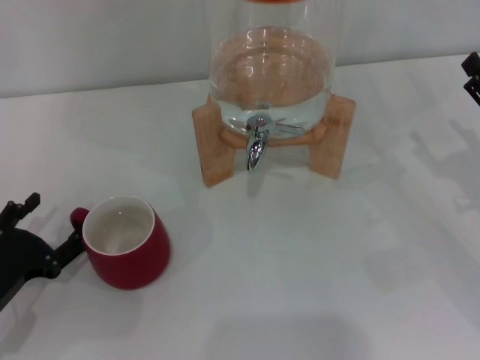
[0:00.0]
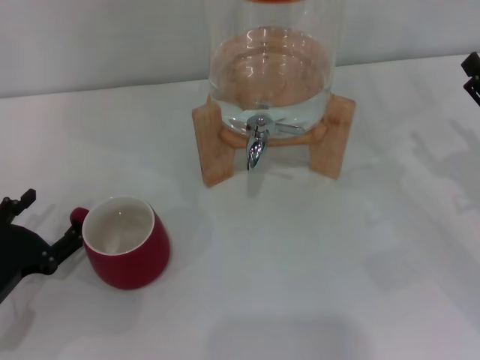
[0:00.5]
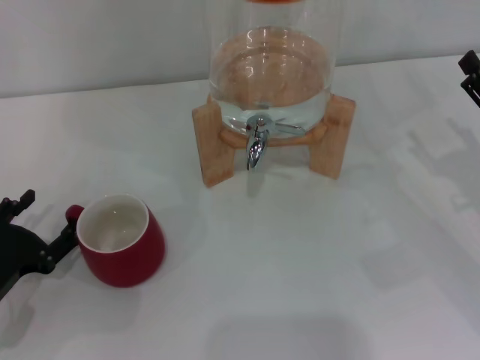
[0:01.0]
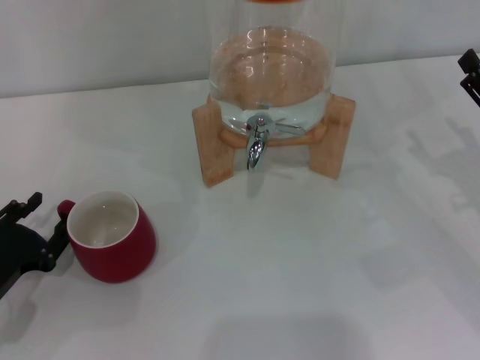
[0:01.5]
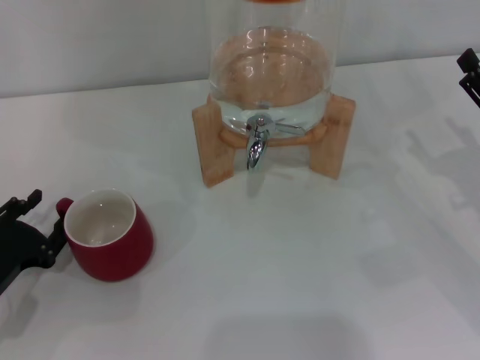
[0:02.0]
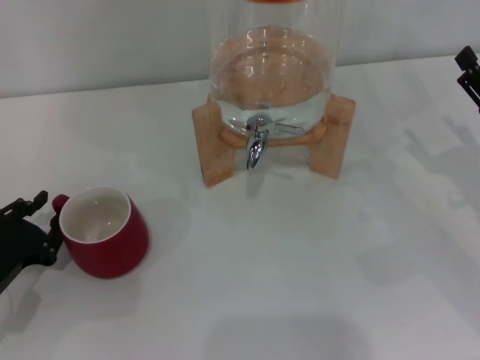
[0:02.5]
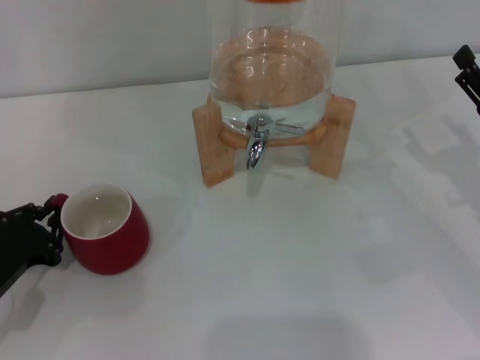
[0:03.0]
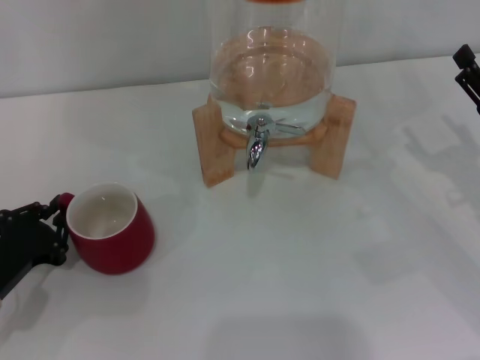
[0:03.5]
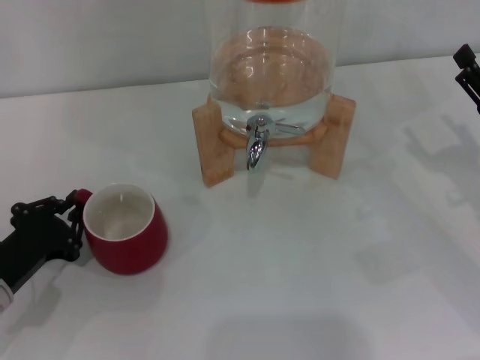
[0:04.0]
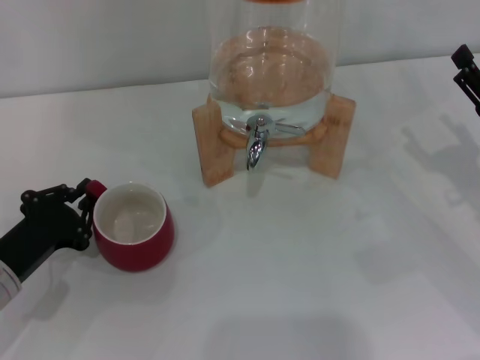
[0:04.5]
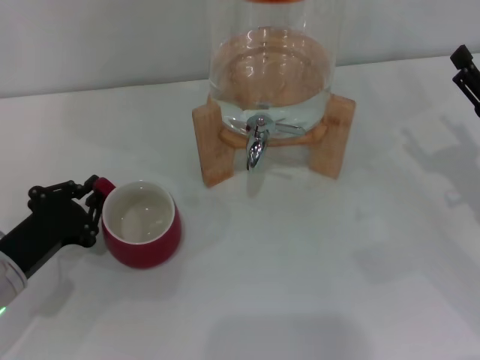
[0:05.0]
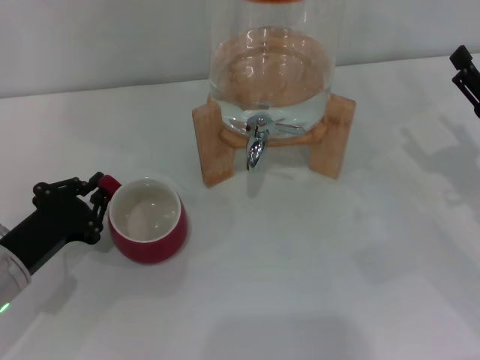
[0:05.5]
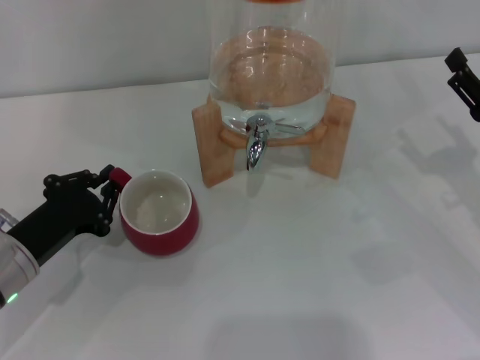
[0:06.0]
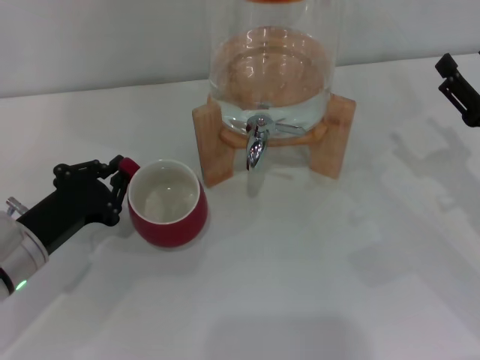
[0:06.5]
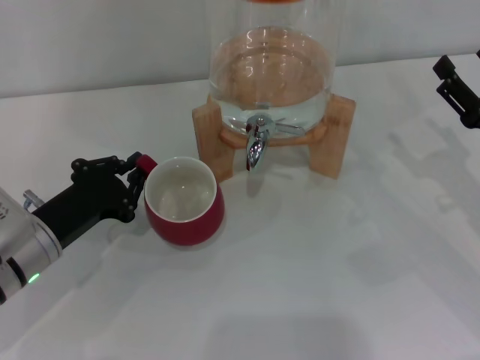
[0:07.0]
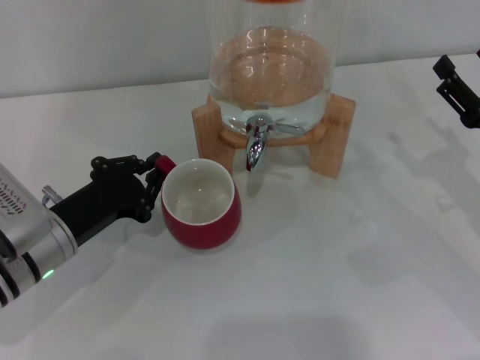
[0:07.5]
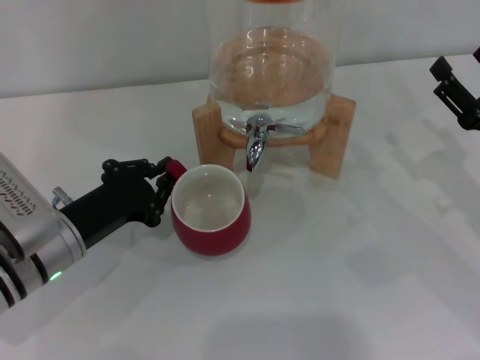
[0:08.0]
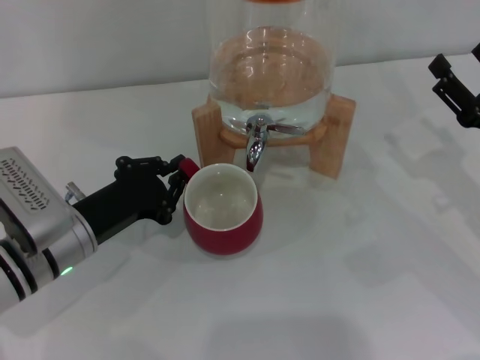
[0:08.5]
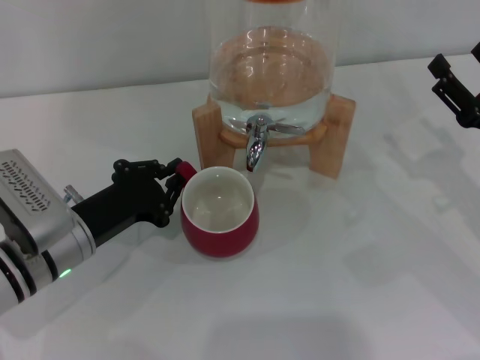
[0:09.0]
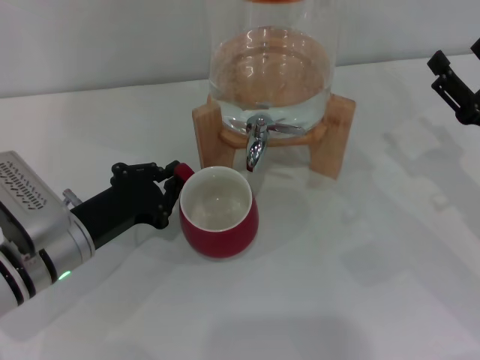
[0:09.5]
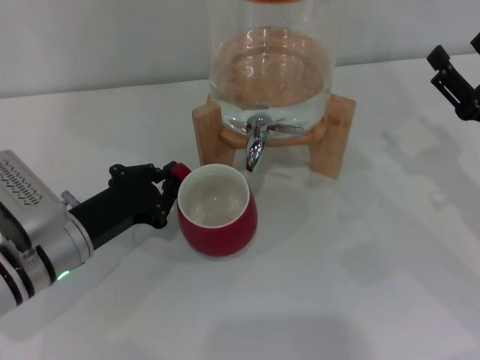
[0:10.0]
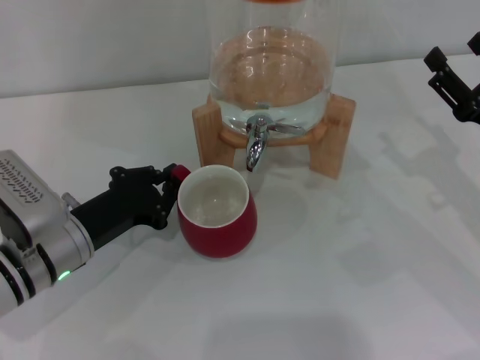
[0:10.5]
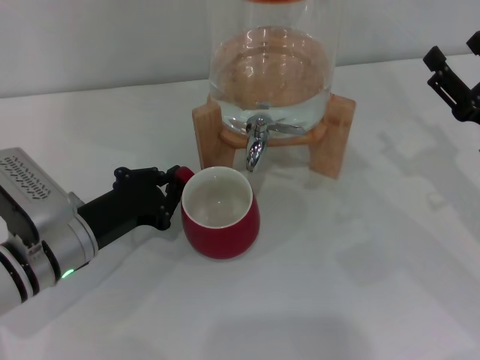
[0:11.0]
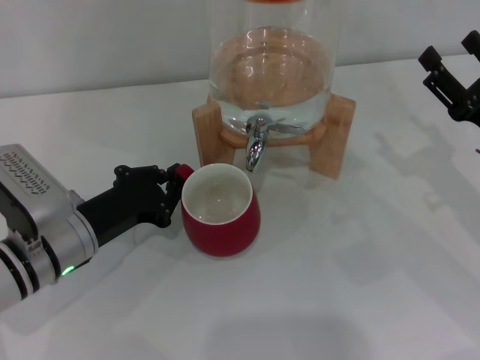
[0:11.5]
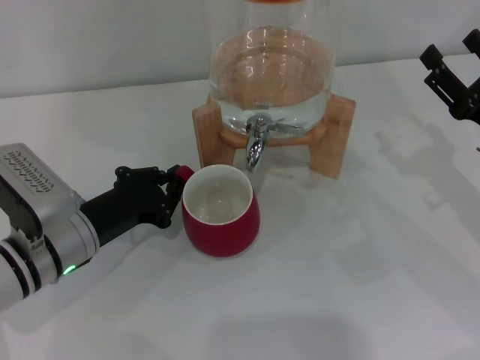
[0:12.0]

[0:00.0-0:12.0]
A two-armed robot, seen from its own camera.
Task of the whole recording: the left gripper pick up the red cup and place it horizontally under the faucet, the right gripper turn on the faucet to fill the cup, and then turn off the faucet.
0:00.0 to 0:02.0: The left gripper closes up.
0:02.0 to 0:04.0: The left gripper closes.
0:04.0 to 0:06.0: There are only small adjustments of the grippers.
0:06.0 to 0:10.0: The grippers stay close to where they were, moving slightly.
0:10.0 to 0:12.0: Both grippers stay put.

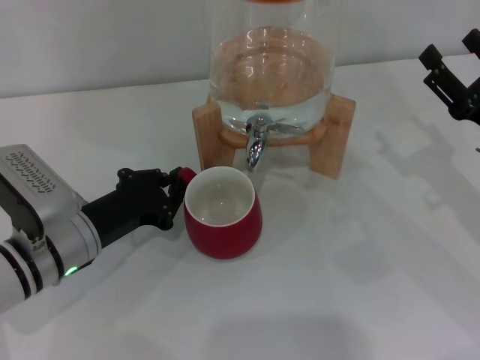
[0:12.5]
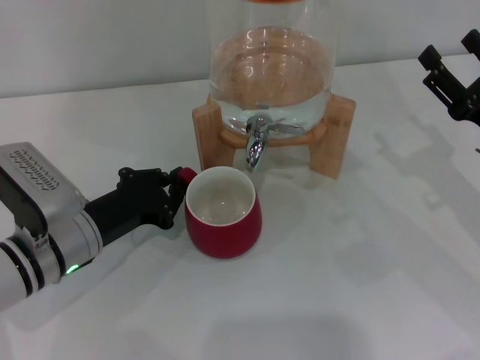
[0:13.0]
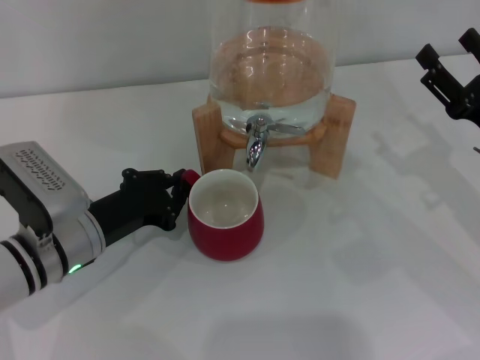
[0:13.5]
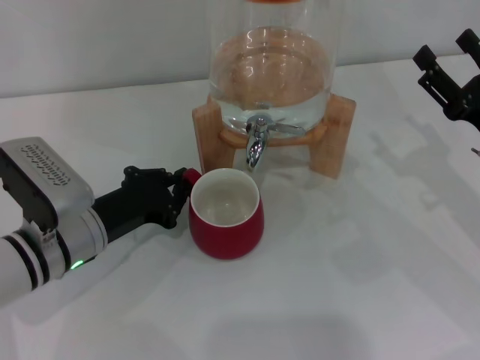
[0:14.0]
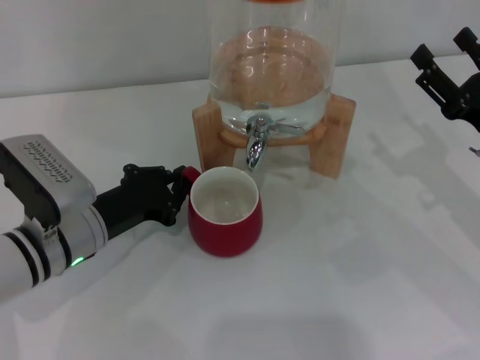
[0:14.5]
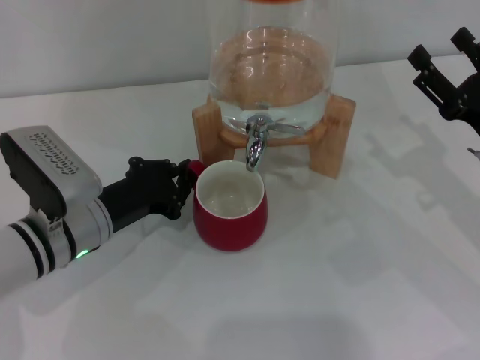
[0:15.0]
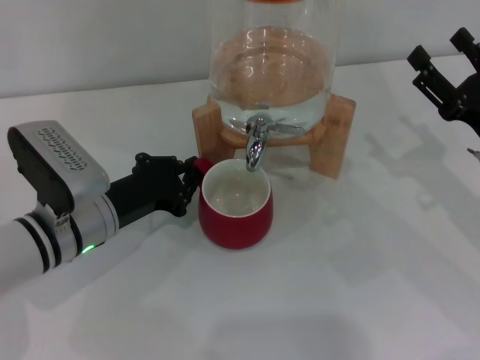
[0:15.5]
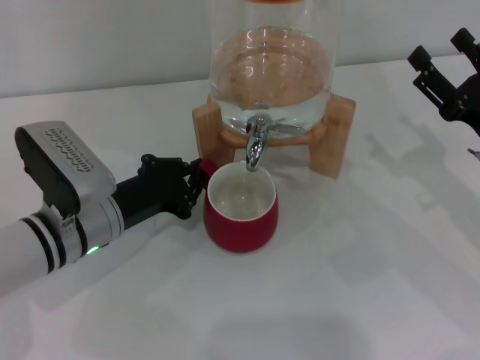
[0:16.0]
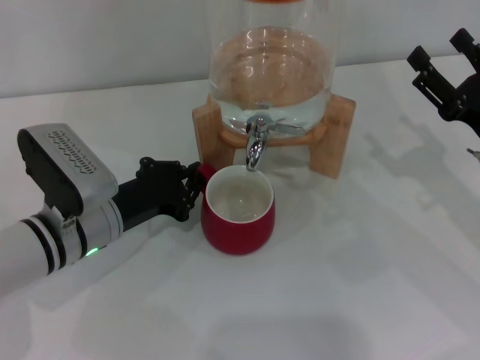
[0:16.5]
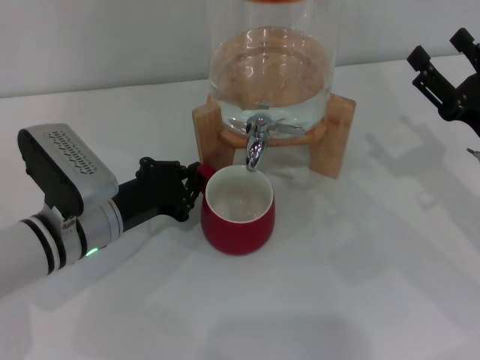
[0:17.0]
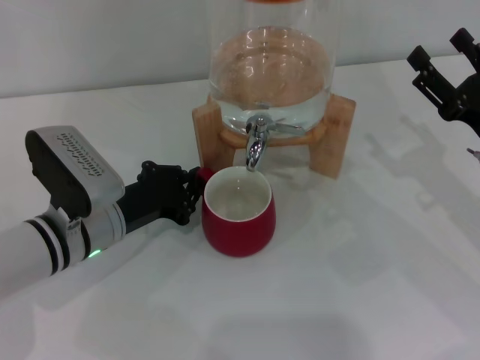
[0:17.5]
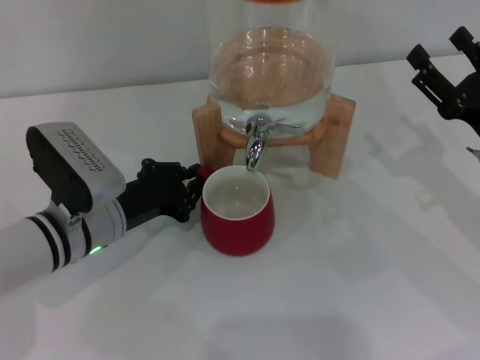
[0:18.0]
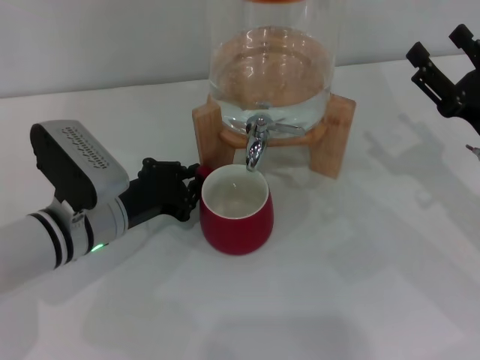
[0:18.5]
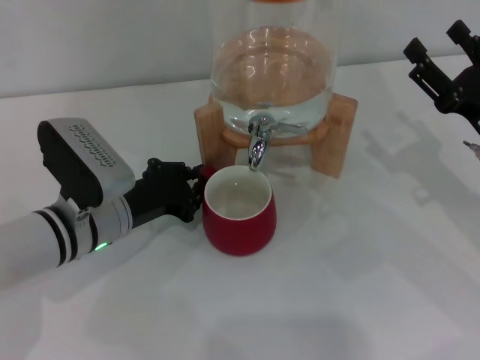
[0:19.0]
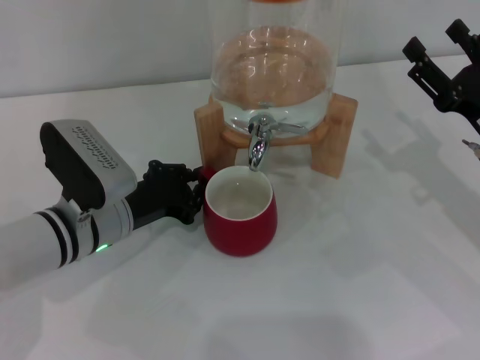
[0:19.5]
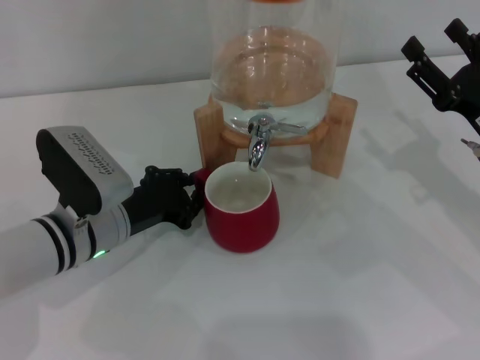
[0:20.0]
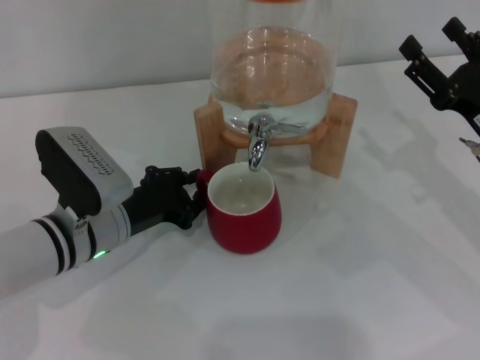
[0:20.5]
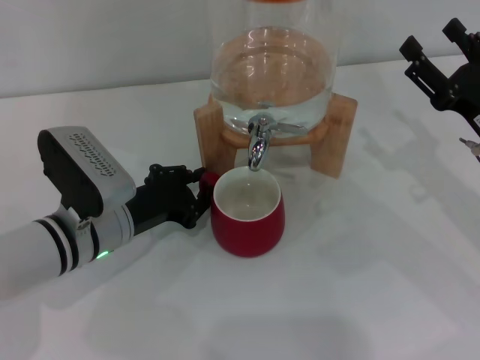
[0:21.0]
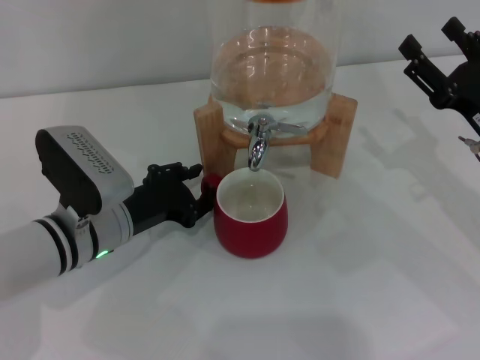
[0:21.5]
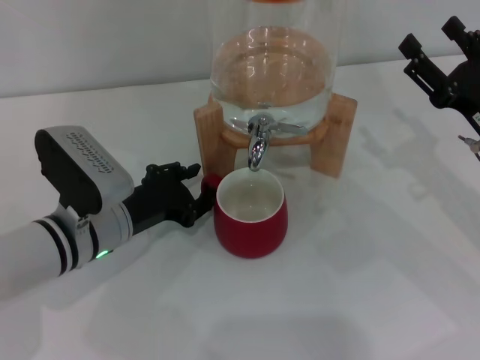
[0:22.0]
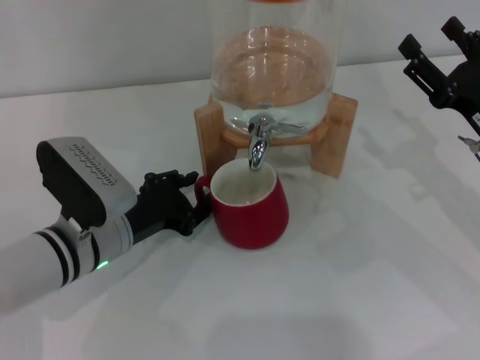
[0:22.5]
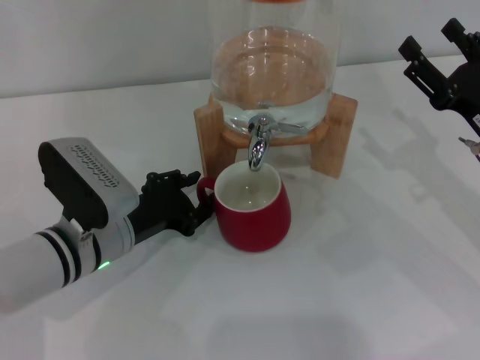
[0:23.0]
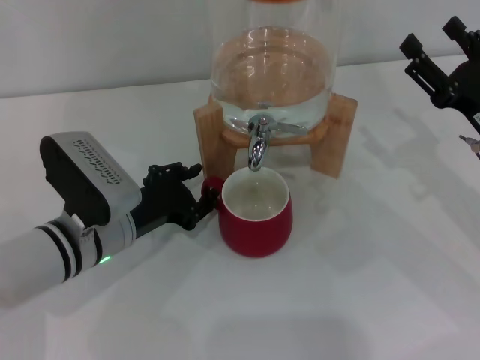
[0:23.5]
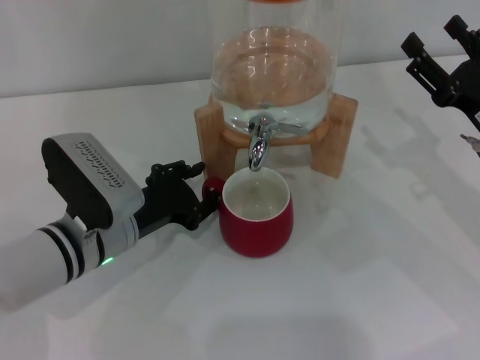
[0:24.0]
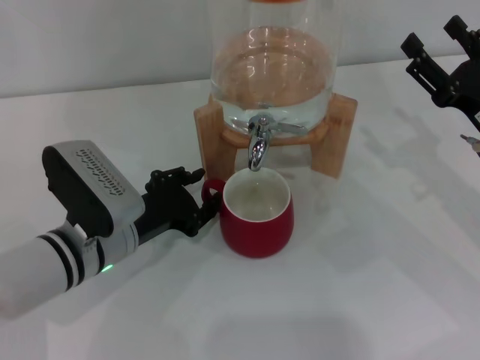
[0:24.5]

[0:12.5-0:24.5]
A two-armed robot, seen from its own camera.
Task of the whole recording: the left gripper pick up the red cup and place it horizontally under the faucet, the right gripper turn on the faucet to fill the cup, and then turn off the faucet.
0:12.5 to 0:14.5: Both grippers stay put.
0:14.5 to 0:16.5: The grippers move only a little.
0:16.5 to 0:20.5: Neither gripper changes place.
0:20.5 to 0:22.5: Both grippers stay put.
0:22.5 to 0:24.5: Neither gripper changes place.

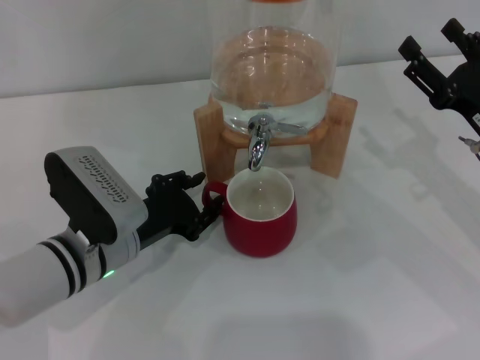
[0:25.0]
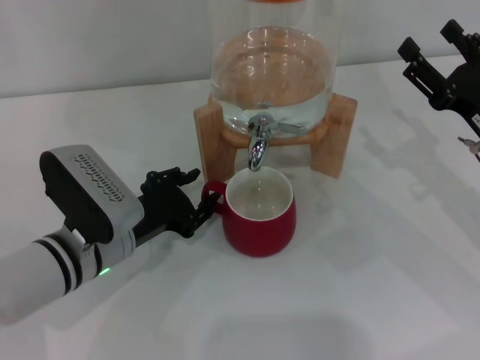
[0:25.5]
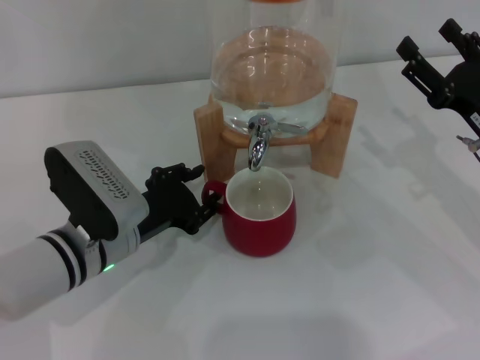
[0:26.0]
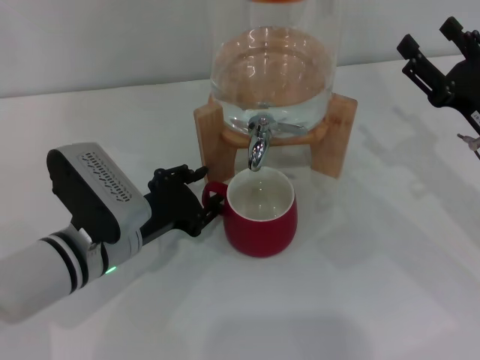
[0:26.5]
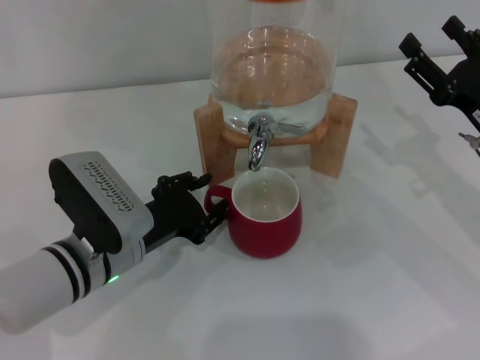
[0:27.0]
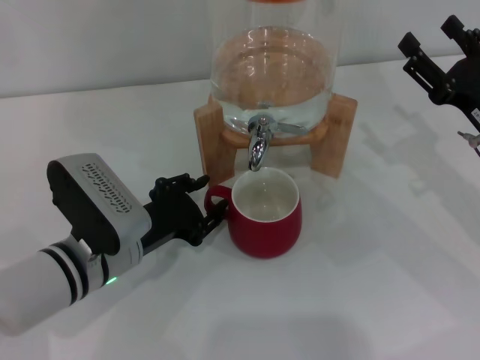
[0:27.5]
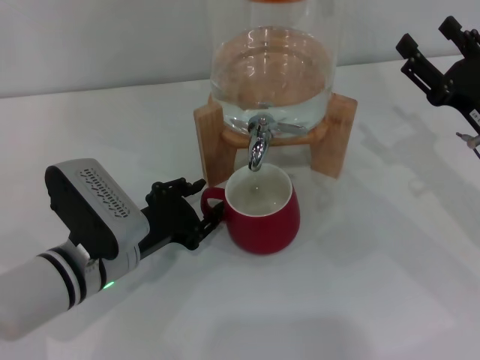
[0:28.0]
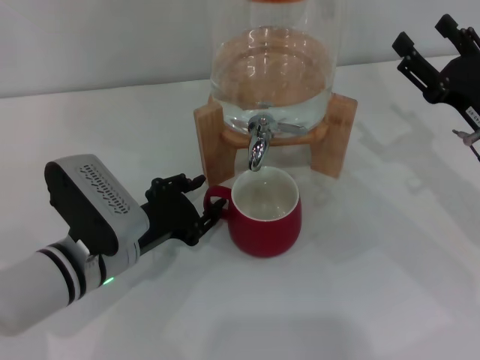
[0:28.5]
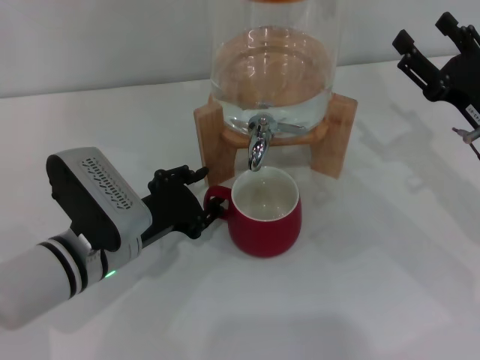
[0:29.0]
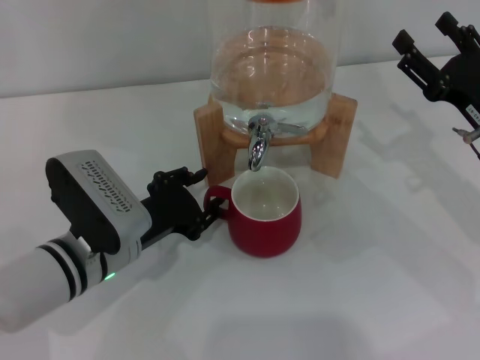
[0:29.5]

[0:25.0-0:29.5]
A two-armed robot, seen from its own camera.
Task of the whole recording: the left gripper pick up the red cup and place it horizontally under the faucet, the right gripper turn on the faucet to fill the cup, and then turn off the faucet.
0:25.0 to 0:29.5: The two grippers keep their place.
